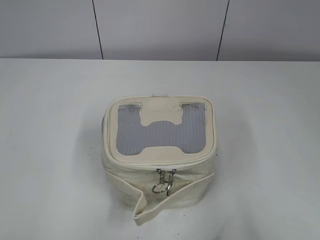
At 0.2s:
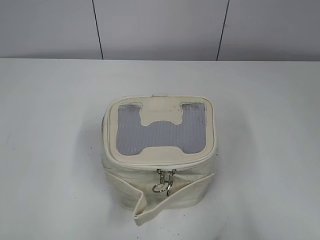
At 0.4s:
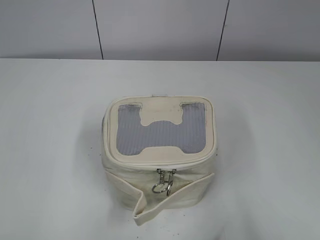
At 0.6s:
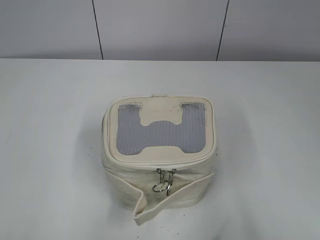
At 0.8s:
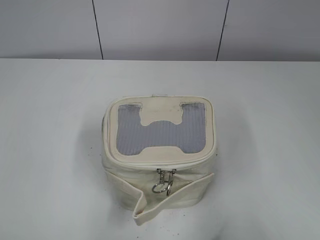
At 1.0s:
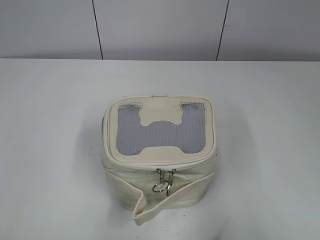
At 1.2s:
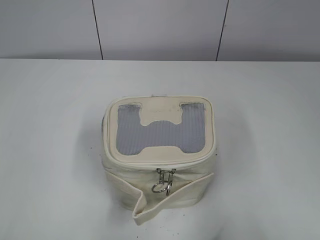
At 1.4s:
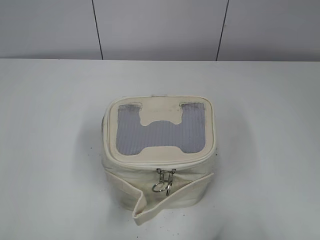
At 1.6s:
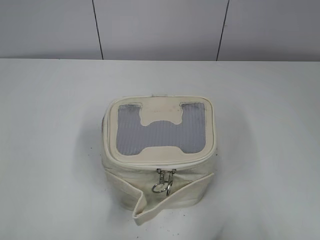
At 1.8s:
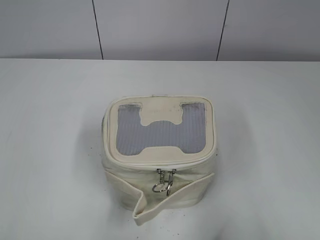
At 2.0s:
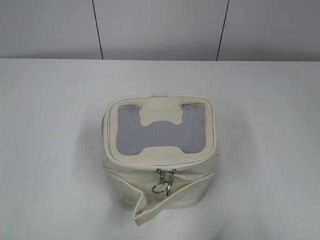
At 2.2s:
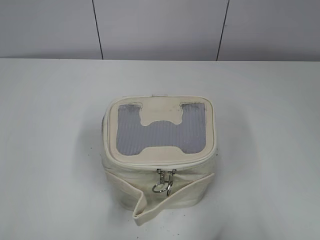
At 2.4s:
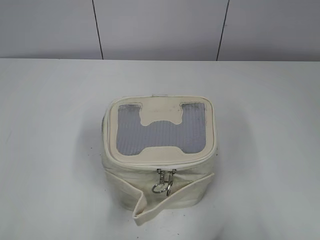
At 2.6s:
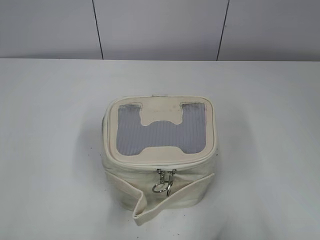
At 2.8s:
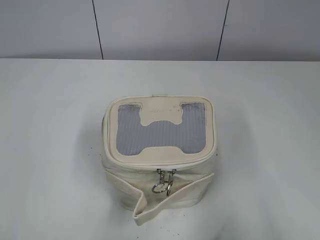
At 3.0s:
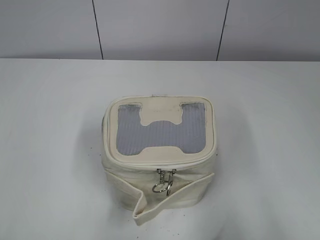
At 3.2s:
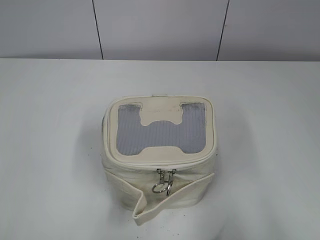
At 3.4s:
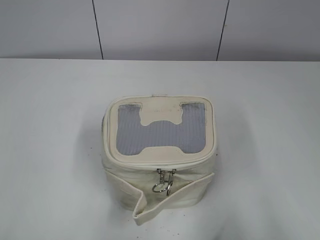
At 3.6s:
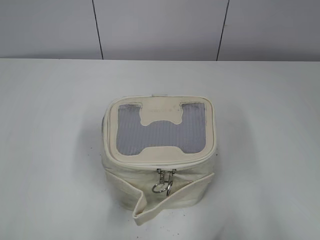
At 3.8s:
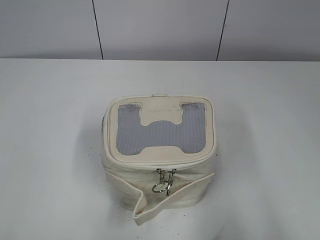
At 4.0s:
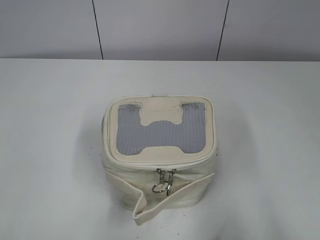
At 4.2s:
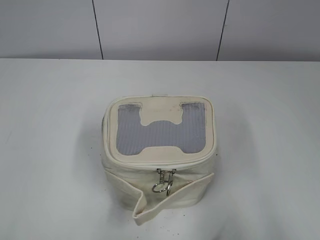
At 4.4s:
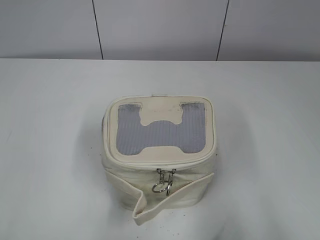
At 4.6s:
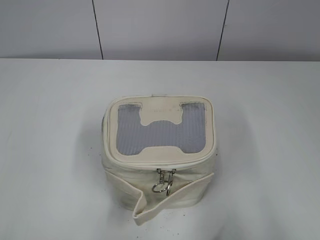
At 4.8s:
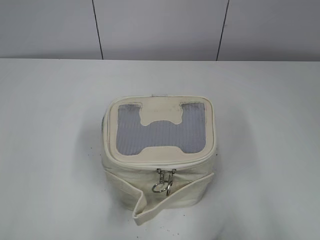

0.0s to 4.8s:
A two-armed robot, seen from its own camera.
3.2s to 4.8s: Both grippers stay put.

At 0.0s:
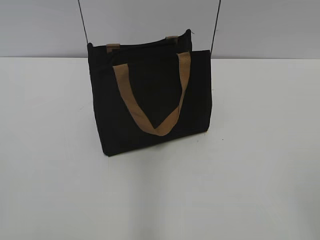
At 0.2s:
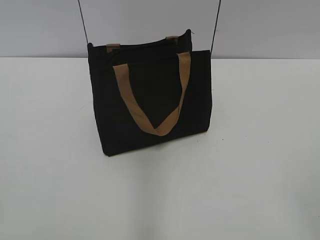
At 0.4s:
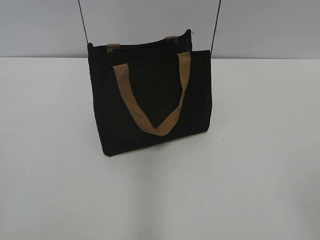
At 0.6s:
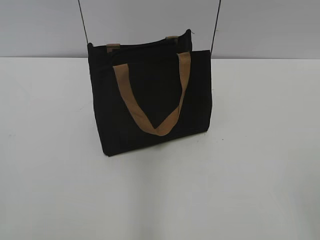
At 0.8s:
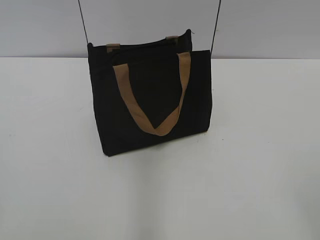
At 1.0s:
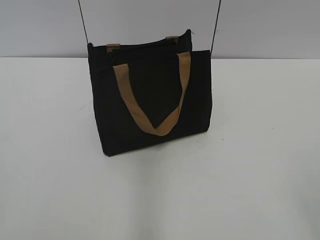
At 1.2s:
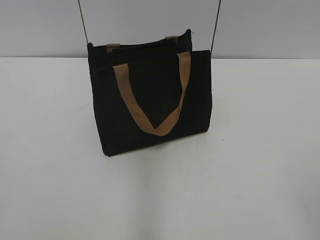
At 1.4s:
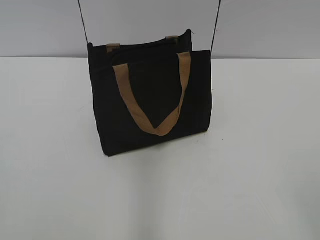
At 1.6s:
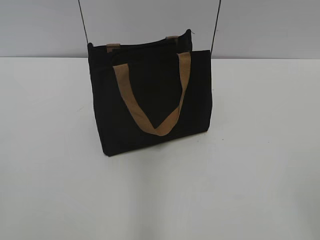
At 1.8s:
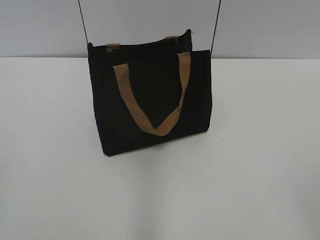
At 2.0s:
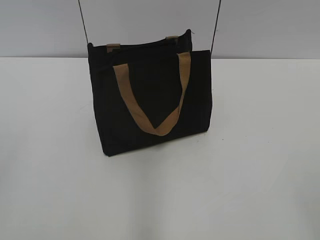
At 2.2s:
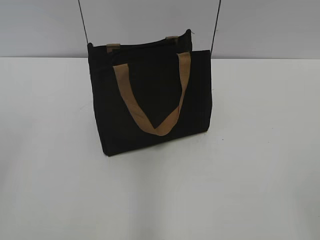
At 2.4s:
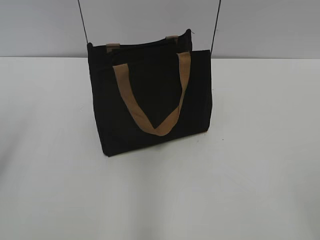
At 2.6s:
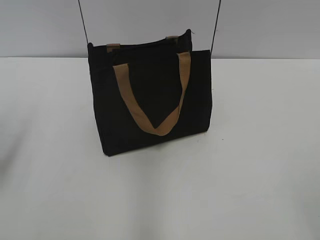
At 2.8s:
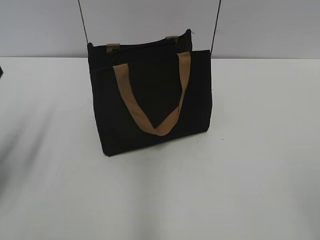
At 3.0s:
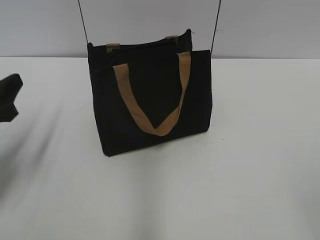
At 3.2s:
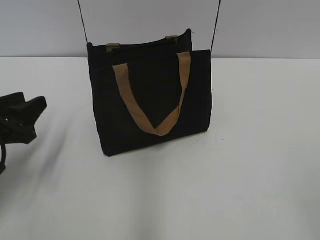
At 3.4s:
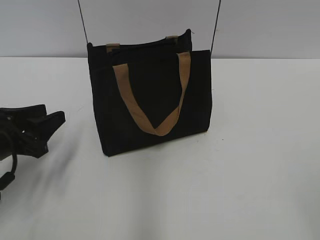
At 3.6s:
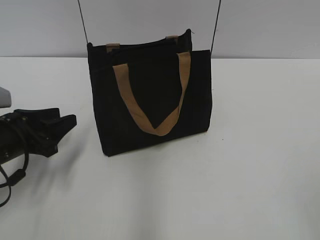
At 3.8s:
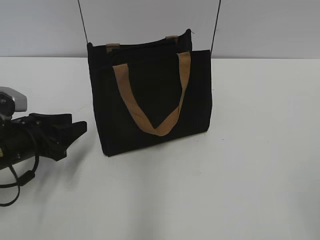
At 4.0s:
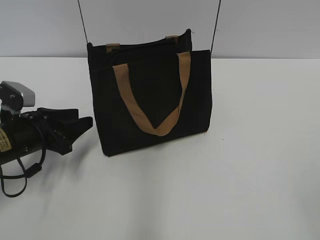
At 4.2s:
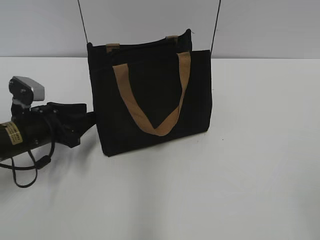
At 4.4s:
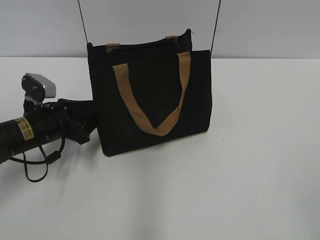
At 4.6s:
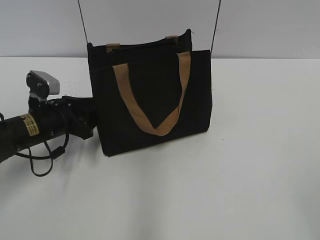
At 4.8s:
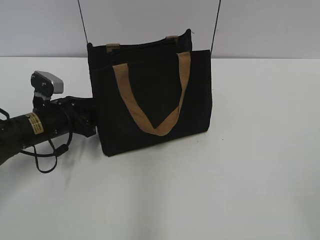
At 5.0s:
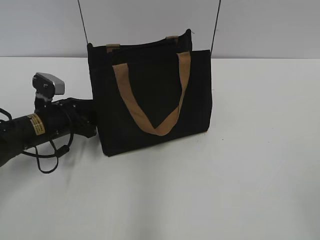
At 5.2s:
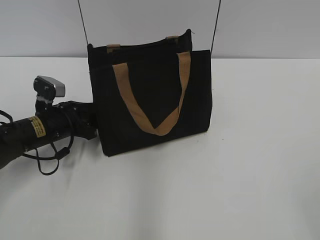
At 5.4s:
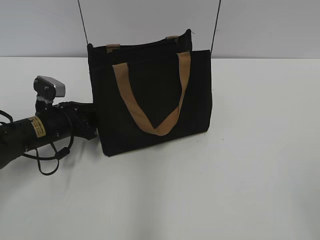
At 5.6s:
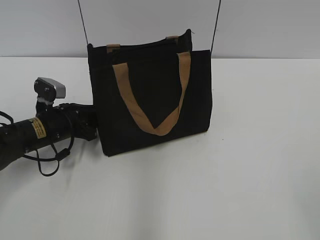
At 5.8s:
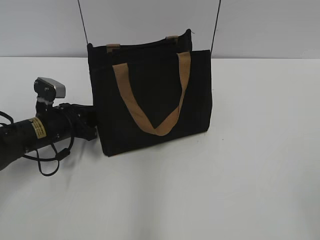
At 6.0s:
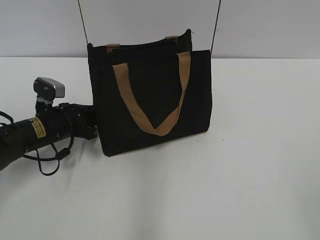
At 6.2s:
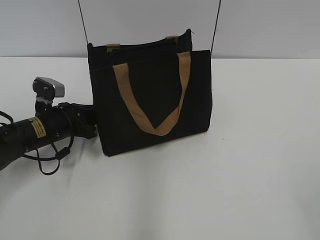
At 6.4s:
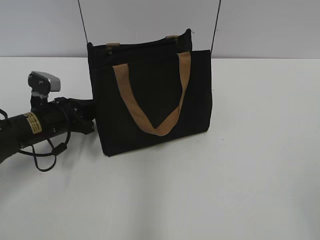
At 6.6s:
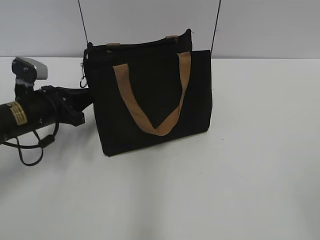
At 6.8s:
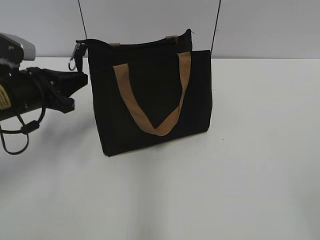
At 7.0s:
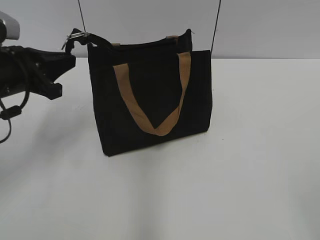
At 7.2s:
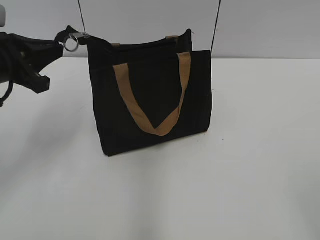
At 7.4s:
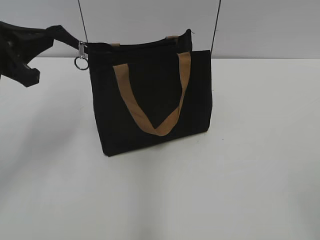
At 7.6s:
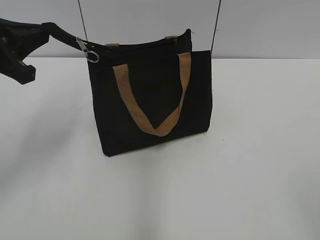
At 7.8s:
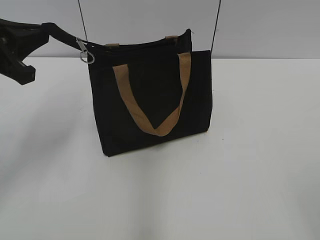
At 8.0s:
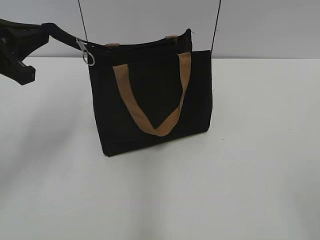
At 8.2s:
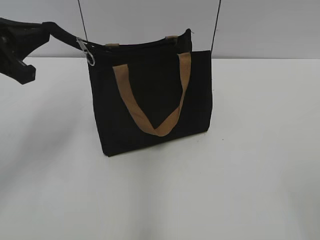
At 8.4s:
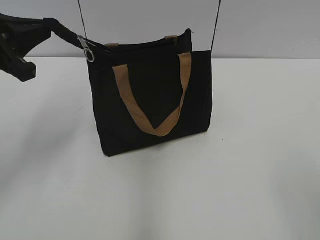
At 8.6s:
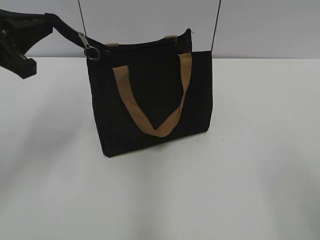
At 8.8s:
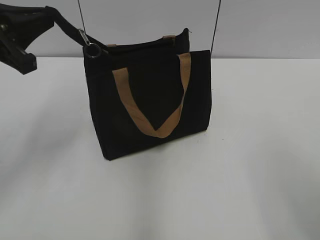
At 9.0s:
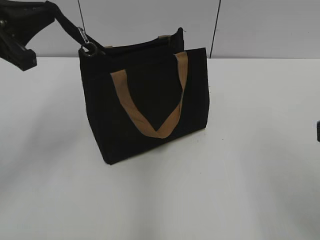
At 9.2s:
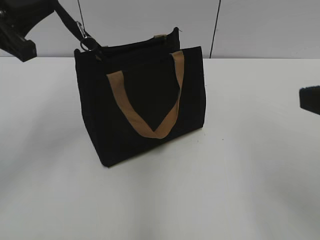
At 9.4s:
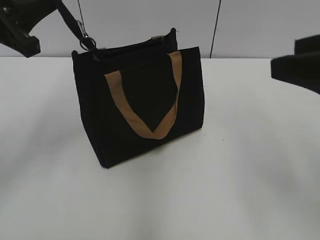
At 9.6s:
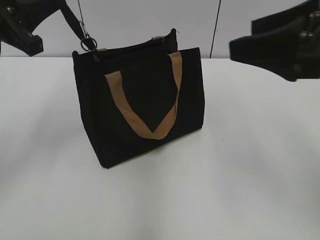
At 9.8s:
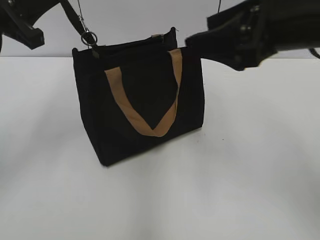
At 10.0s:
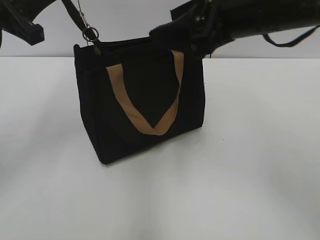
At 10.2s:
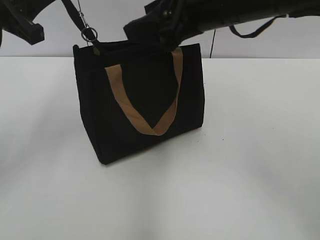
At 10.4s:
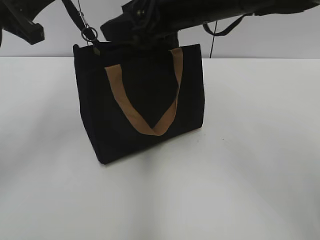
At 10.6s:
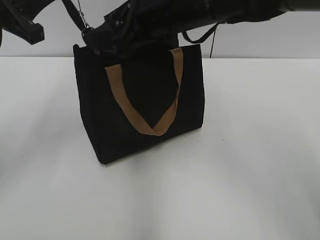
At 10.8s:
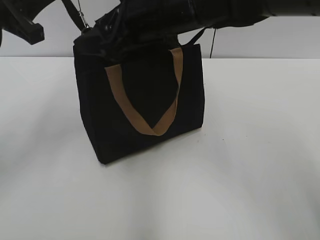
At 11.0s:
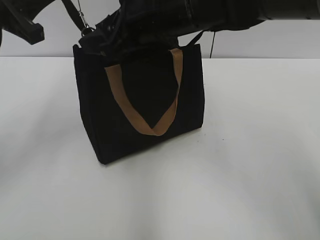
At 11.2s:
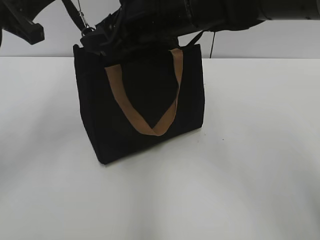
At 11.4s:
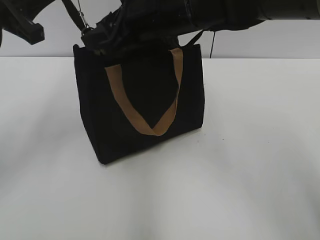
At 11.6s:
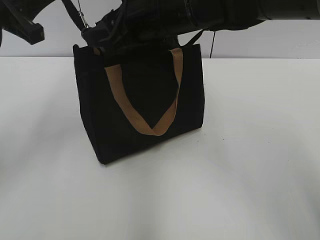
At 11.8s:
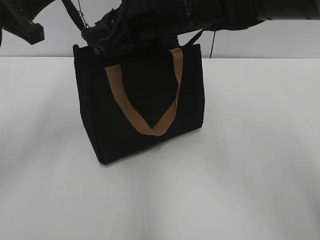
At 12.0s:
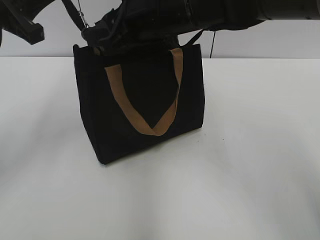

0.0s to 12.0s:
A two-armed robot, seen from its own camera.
1.6s to 3.0s: The left gripper travels forward and downward by approximately 25 cm.
3.0s to 4.4s: The left gripper is displaced downward, forward and to the right by some 15 cm.
4.4s to 6.0s: The left gripper closes up.
6.0s to 7.6s: The left gripper is displaced upward by some 20 cm.
7.6s to 9.0s: The right gripper is displaced forward by some 10 cm.
9.0s to 10.4s: The right gripper moves forward and to the left, approximately 30 cm.
10.4s to 12.0s: The right gripper changes place by roughly 5 cm, and closes up.

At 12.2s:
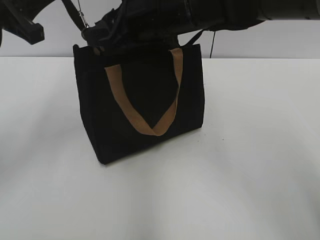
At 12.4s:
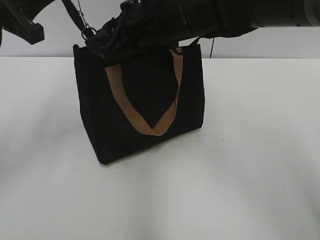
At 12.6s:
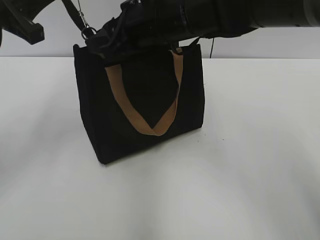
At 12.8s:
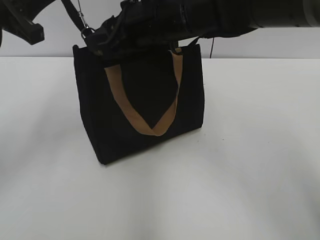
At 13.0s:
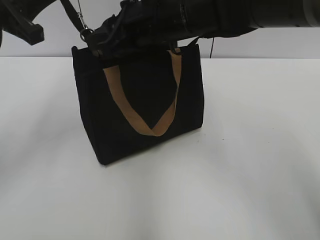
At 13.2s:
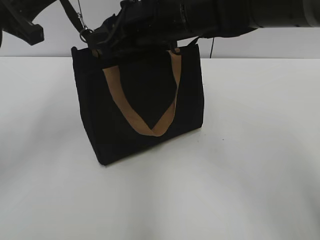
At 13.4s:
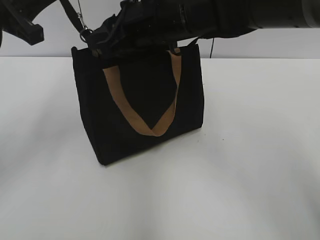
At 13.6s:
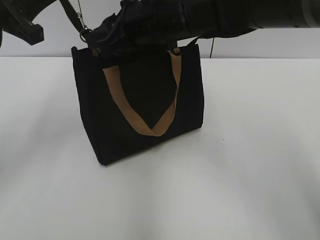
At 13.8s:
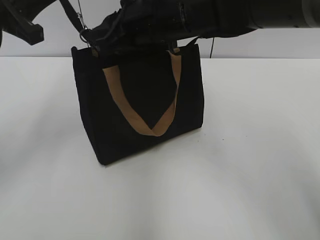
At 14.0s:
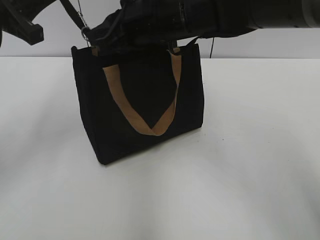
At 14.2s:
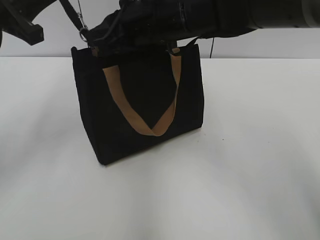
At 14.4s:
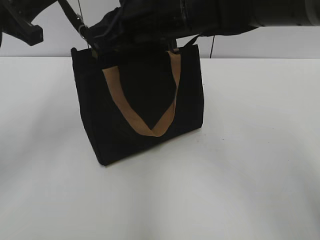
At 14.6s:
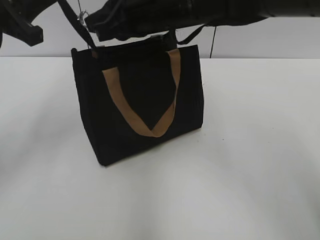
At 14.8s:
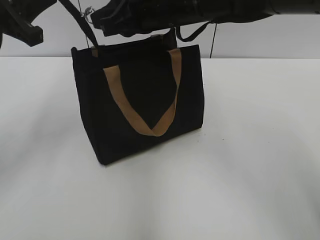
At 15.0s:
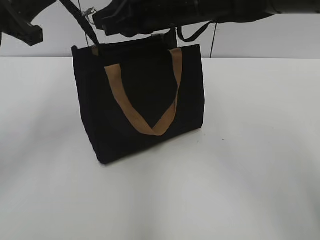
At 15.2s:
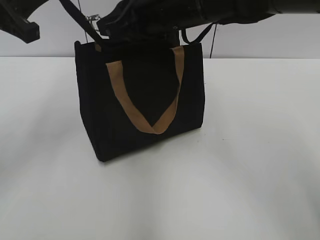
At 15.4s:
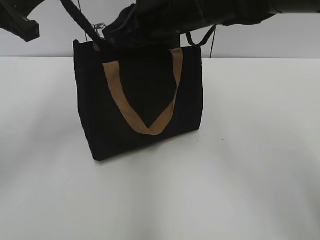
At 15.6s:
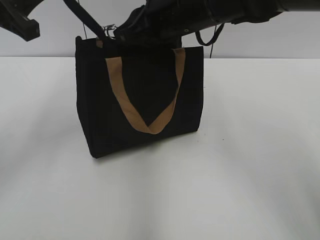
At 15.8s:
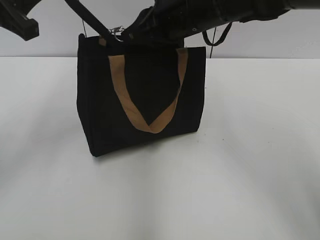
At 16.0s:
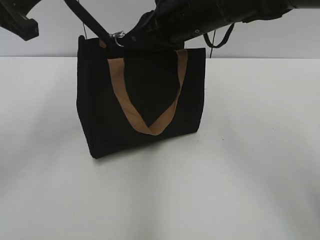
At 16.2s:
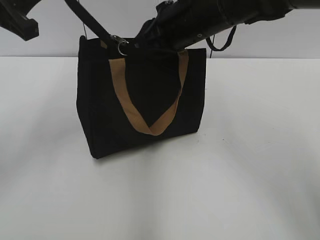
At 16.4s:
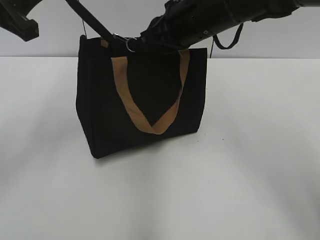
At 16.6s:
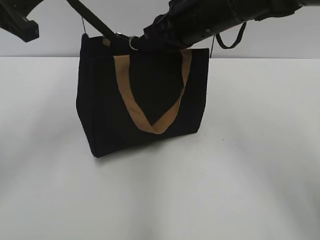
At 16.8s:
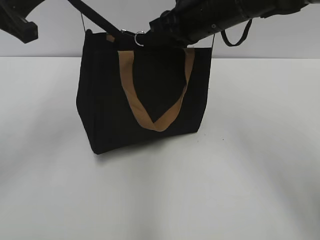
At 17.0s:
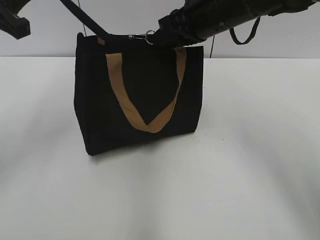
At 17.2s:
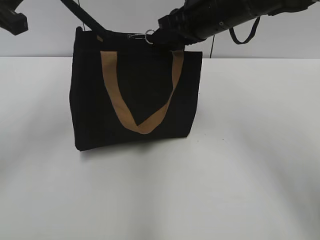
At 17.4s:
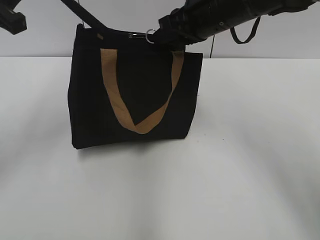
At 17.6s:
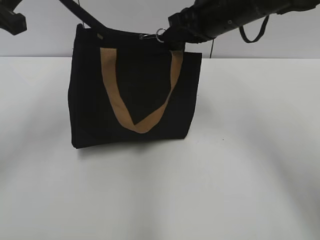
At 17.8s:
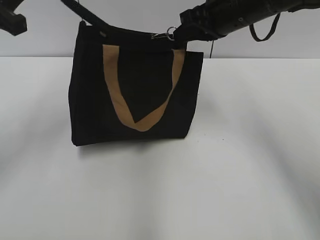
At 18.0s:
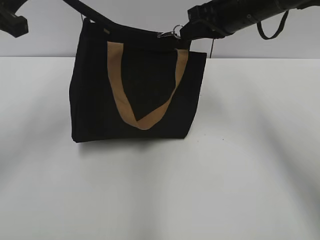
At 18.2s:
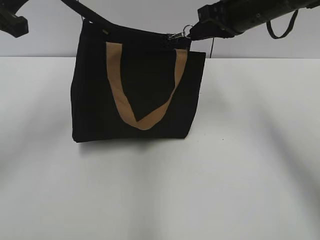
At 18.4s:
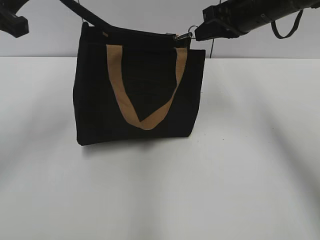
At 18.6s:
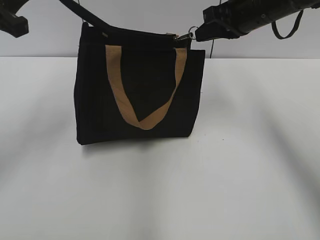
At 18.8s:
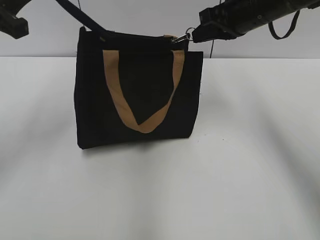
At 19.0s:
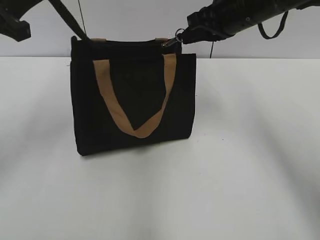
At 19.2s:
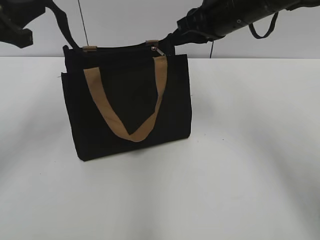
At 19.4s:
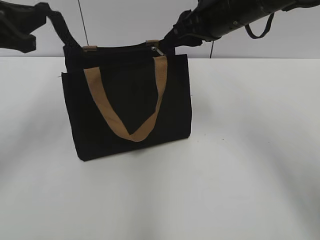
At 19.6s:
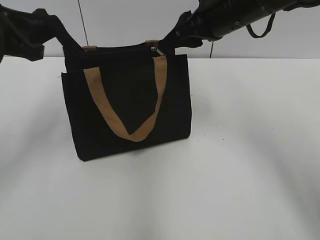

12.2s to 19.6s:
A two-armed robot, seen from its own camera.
Step, 12.2s to 19.0s: Zip up the bag with your right hand.
12.2s to 13.6s: Both grippers stay about where they are.
13.6s to 15.2s: The grippers stay close to where they were, moving slightly.
15.2s to 16.6s: The right gripper moves approximately 5 cm.
16.6s to 18.2s: The right gripper is displaced to the right by about 10 cm.
18.2s to 19.6s: The right gripper opens its fingers. The left gripper opens its fingers.
